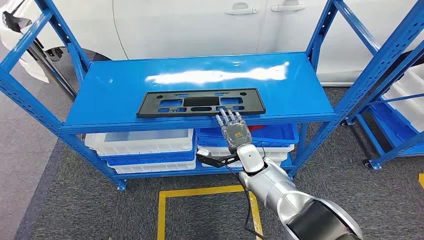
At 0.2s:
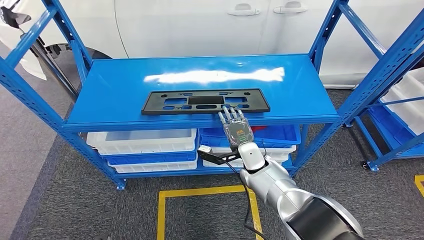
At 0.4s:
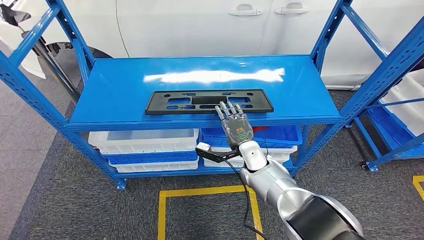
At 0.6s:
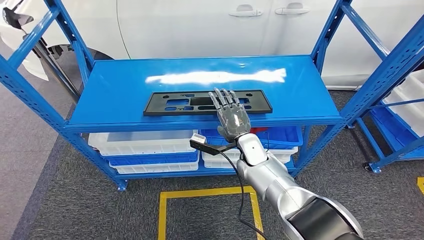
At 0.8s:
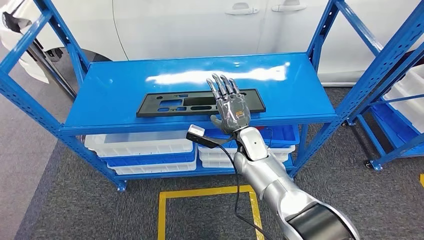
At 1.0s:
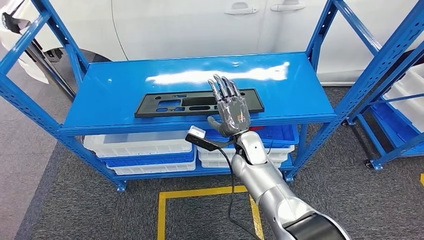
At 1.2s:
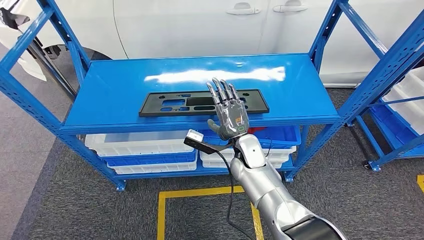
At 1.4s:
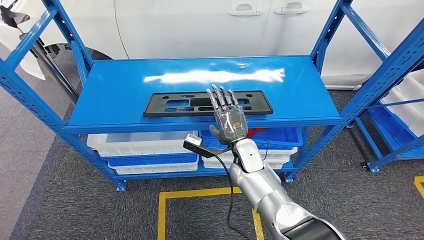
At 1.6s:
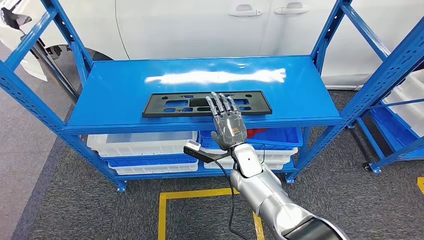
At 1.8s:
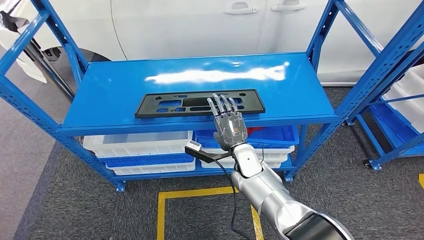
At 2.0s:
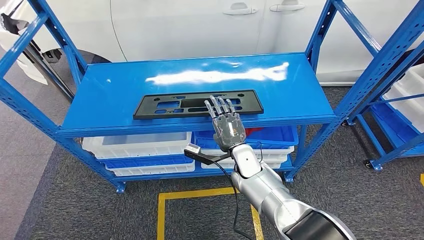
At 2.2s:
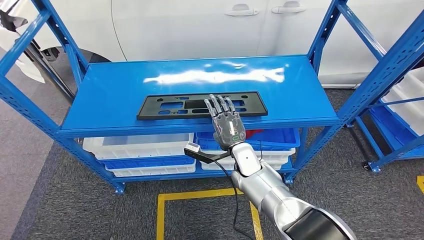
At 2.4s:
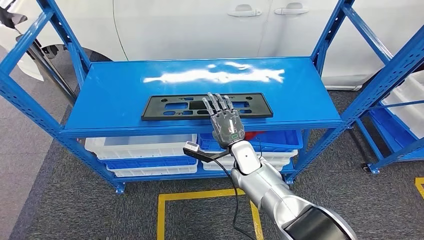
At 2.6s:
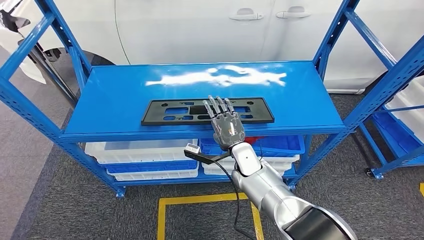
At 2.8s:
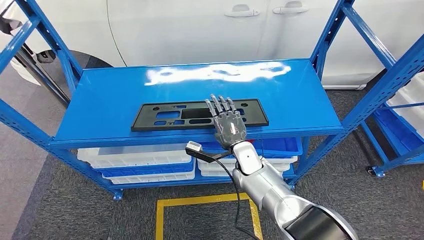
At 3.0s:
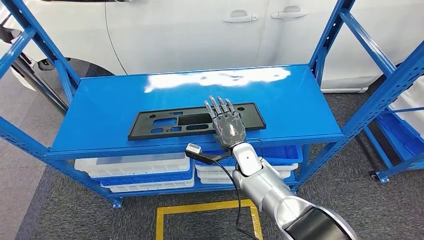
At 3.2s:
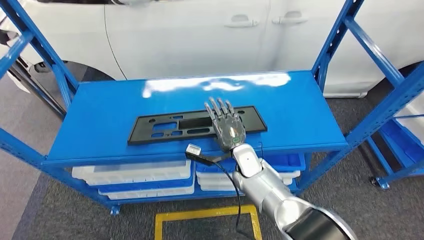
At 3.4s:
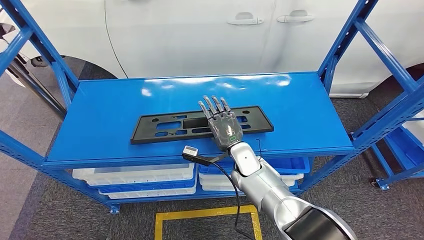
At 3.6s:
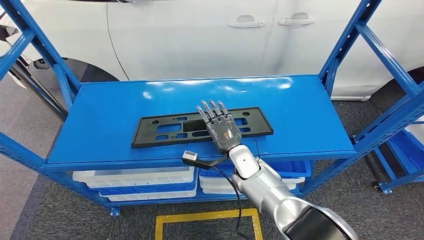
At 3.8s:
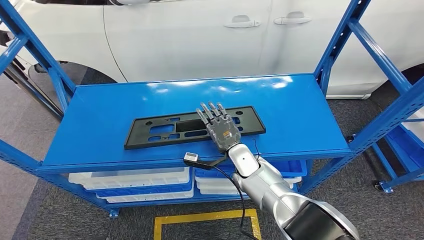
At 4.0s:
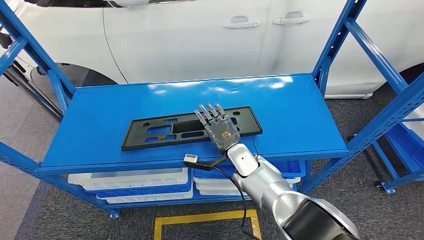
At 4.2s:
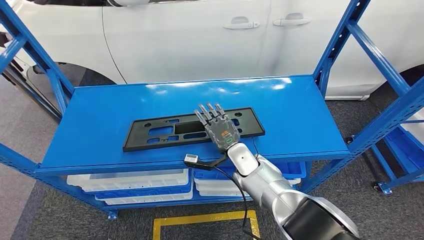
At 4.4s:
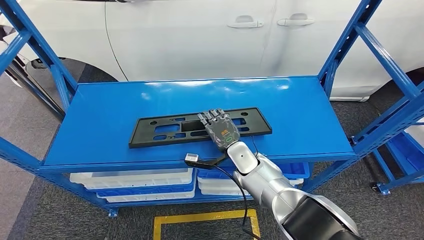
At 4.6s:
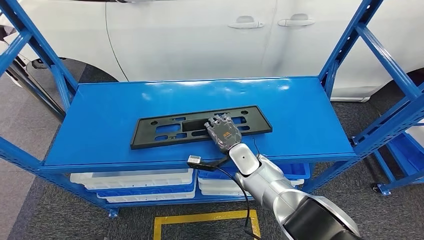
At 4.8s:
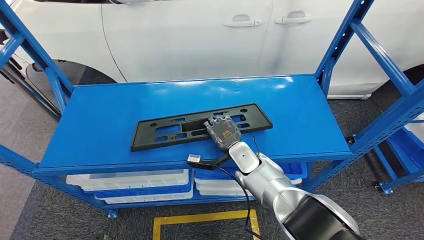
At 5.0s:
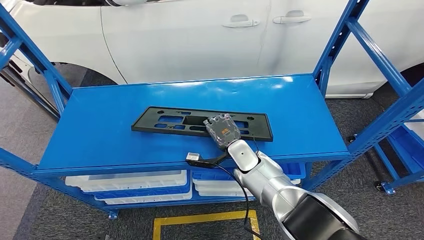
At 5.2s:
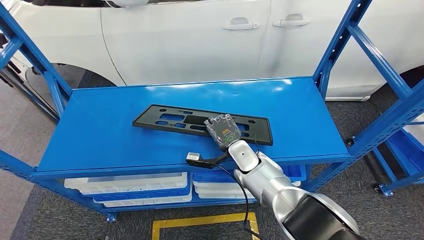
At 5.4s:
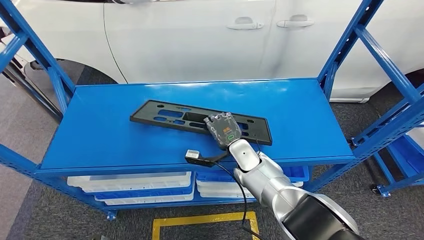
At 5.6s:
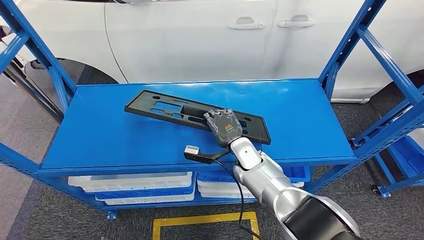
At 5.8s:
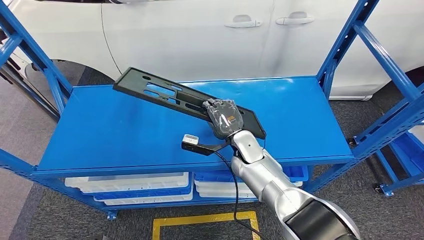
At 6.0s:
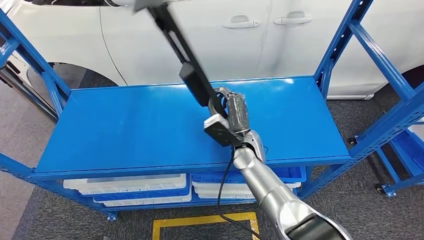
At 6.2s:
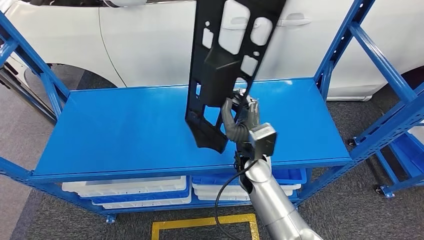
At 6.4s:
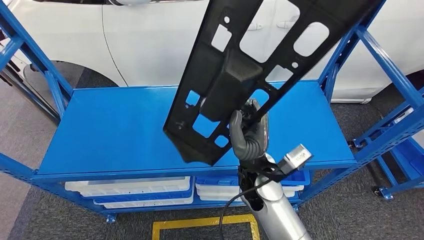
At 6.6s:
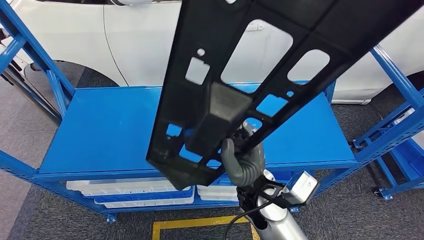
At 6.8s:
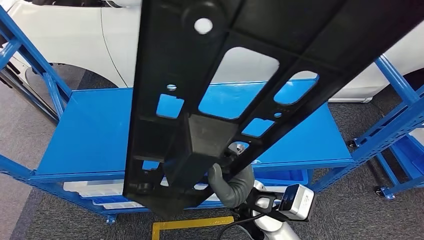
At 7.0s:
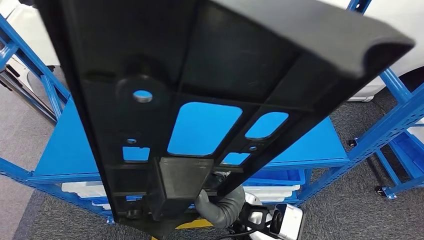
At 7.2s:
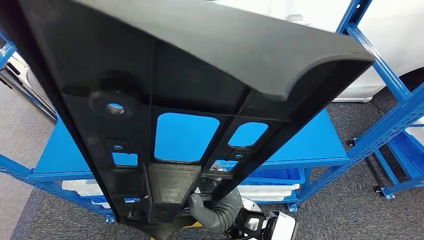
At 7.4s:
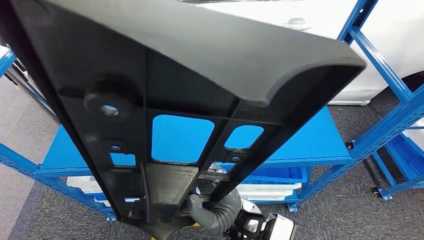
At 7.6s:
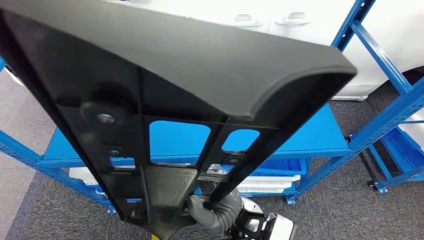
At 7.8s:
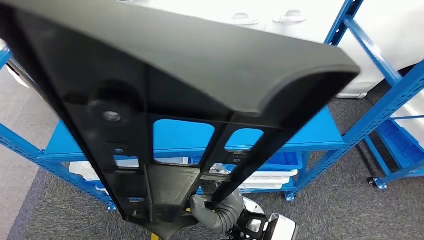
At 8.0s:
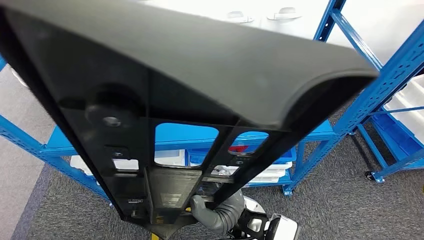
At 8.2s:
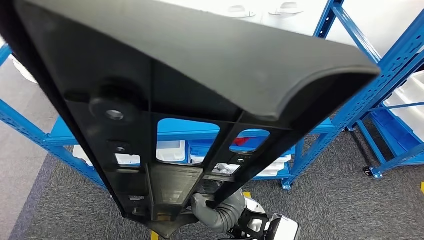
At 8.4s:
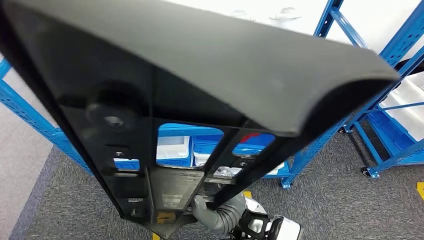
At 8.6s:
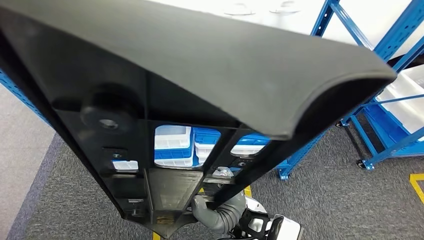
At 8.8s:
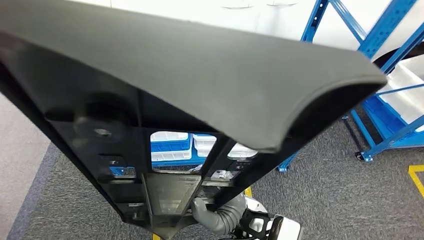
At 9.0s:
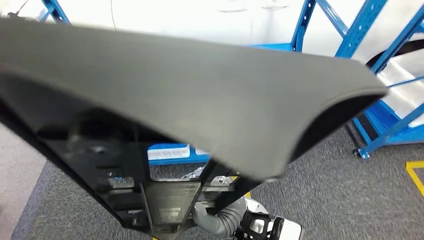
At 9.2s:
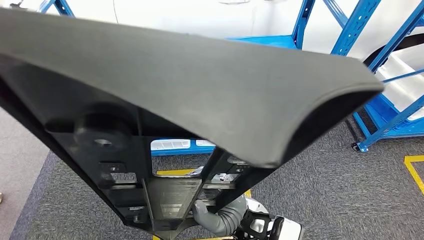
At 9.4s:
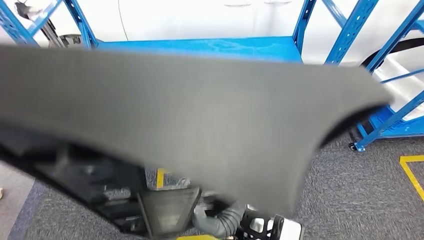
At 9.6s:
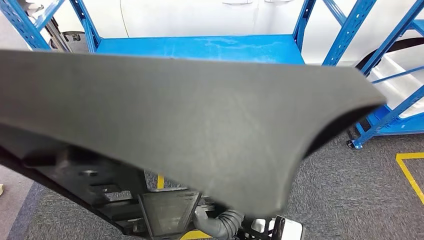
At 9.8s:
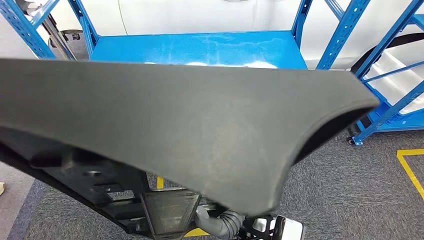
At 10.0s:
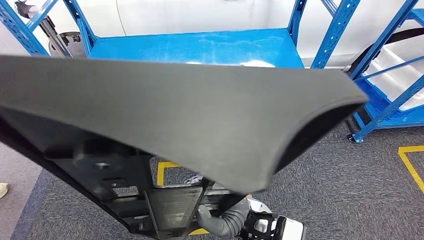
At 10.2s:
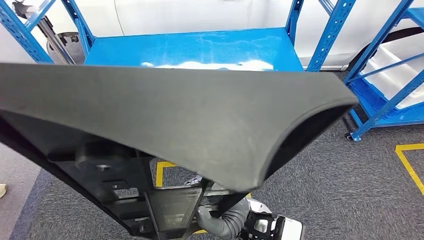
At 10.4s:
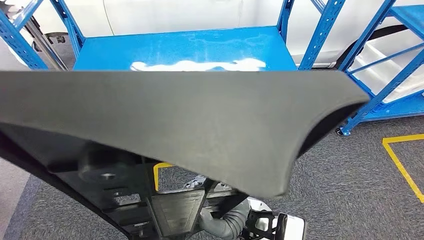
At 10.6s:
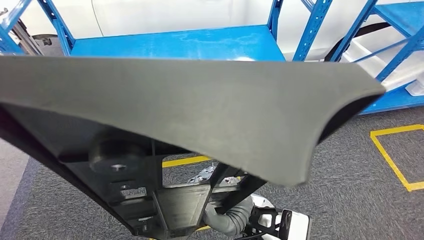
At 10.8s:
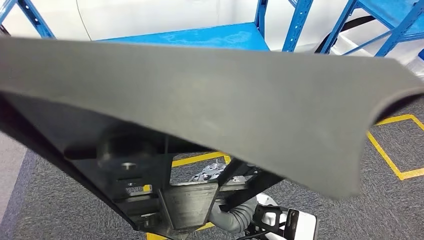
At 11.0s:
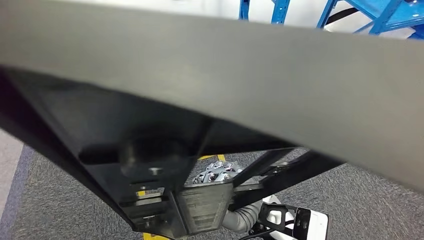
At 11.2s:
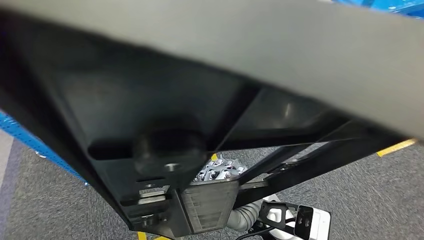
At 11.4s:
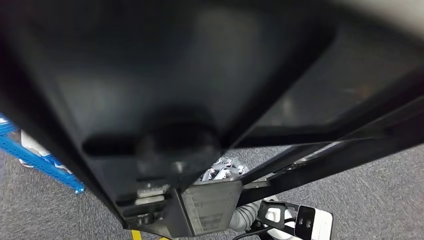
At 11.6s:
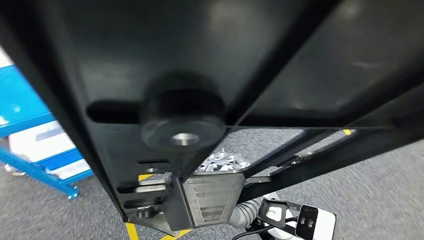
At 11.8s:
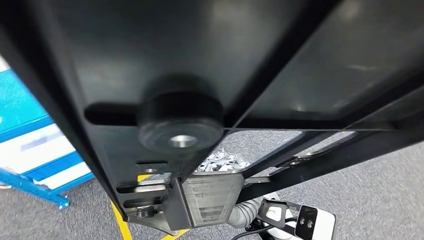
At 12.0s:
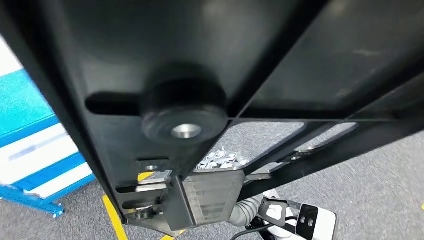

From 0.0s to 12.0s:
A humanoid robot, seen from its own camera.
Step, from 0.0s to 6.4s: Pick up the large material from the shelf.

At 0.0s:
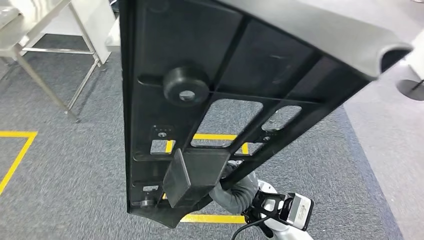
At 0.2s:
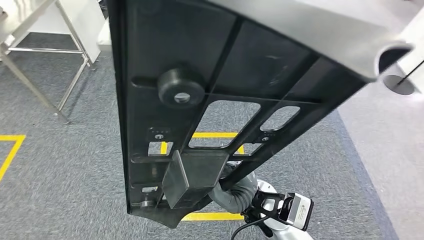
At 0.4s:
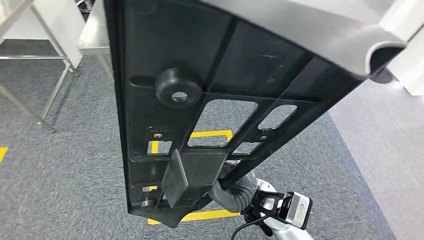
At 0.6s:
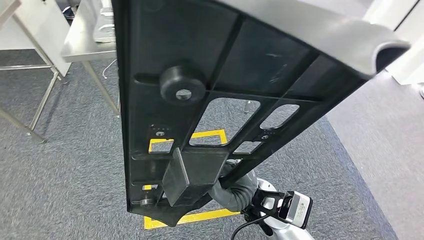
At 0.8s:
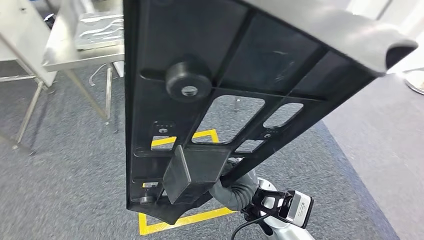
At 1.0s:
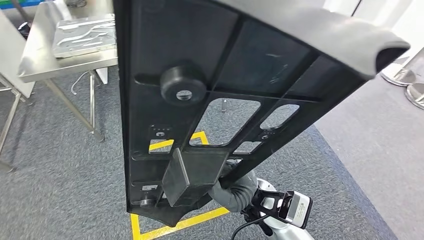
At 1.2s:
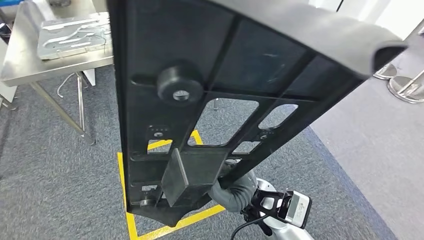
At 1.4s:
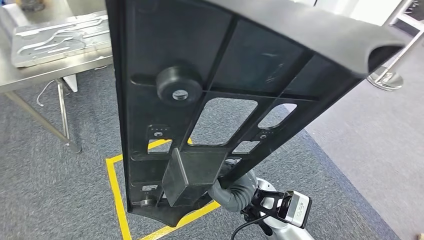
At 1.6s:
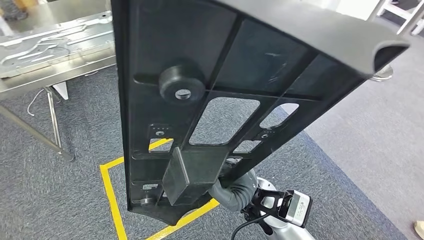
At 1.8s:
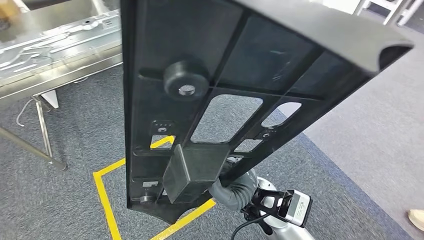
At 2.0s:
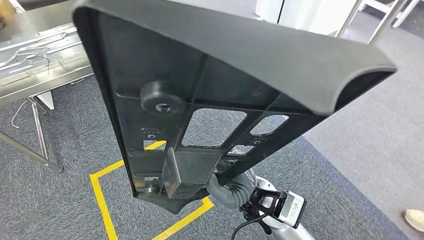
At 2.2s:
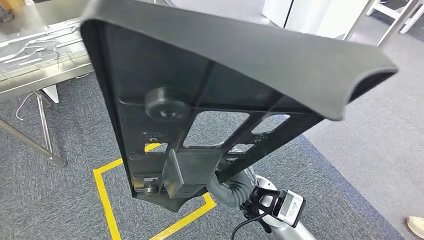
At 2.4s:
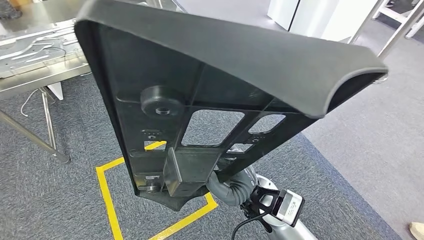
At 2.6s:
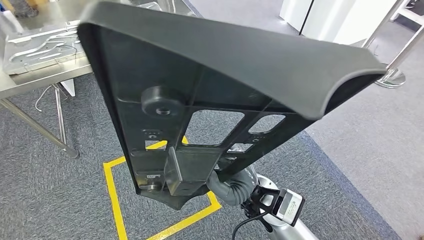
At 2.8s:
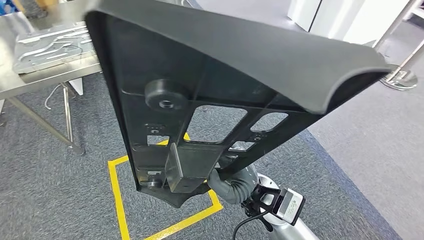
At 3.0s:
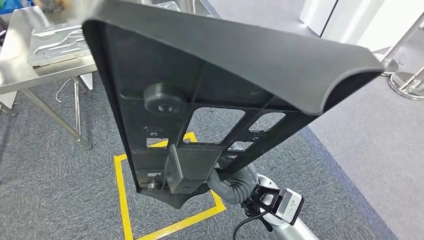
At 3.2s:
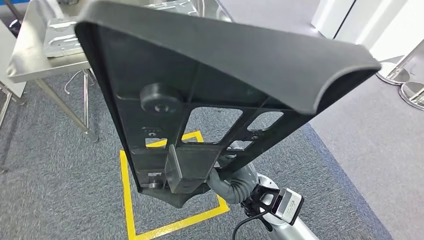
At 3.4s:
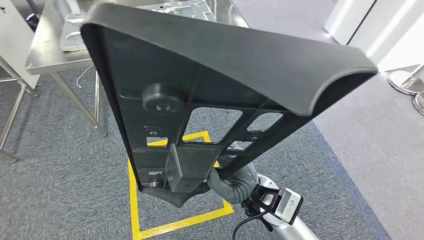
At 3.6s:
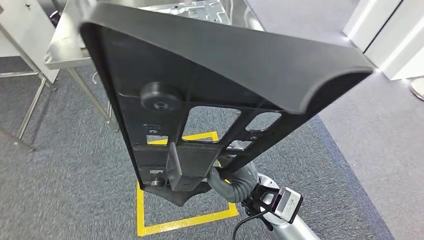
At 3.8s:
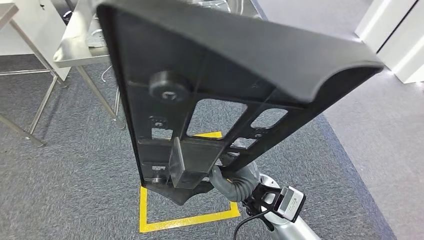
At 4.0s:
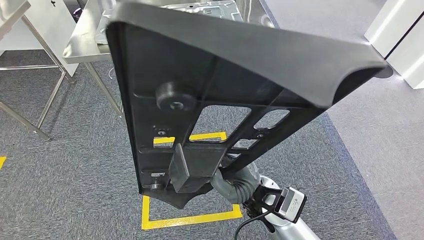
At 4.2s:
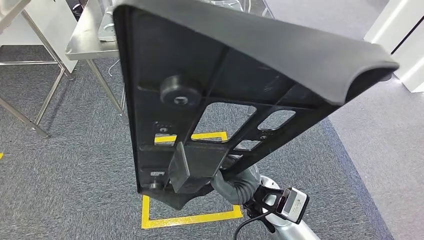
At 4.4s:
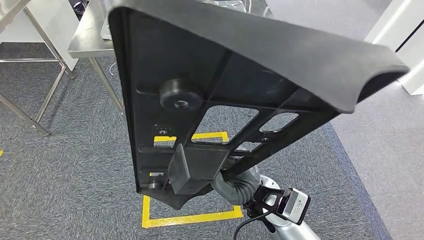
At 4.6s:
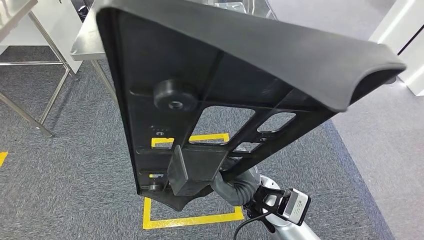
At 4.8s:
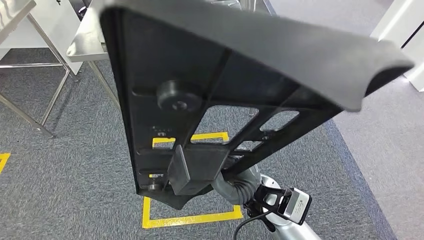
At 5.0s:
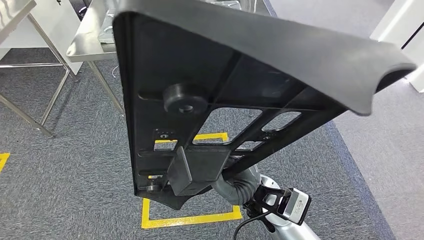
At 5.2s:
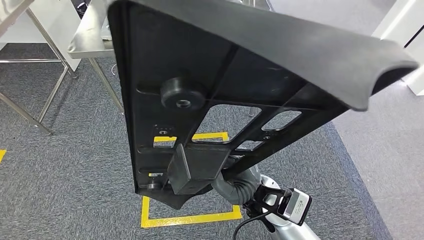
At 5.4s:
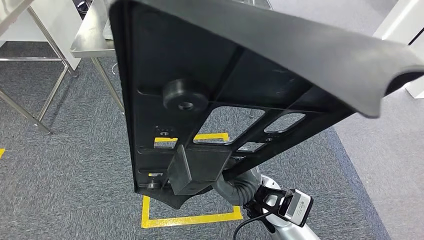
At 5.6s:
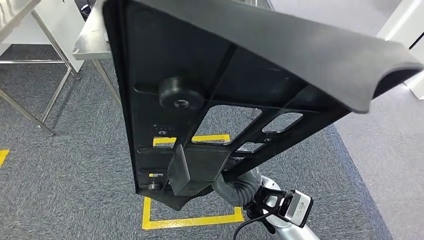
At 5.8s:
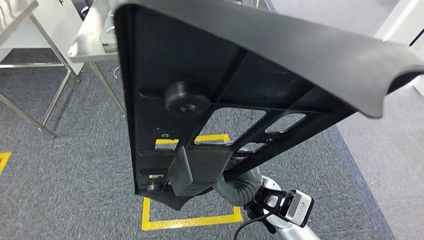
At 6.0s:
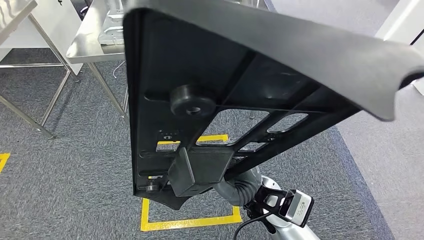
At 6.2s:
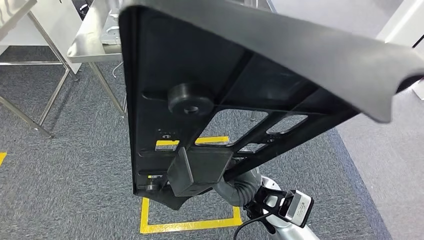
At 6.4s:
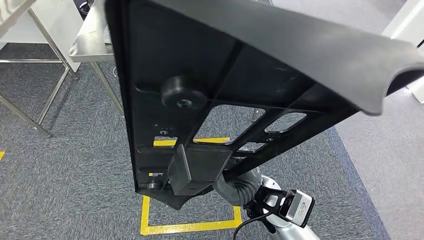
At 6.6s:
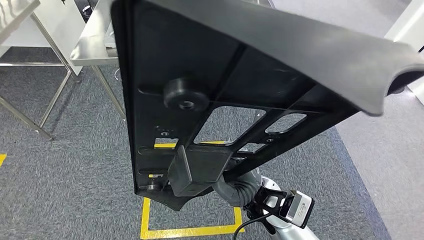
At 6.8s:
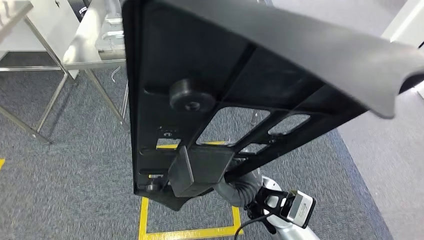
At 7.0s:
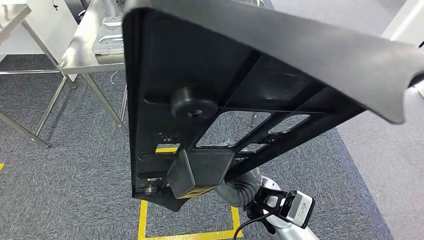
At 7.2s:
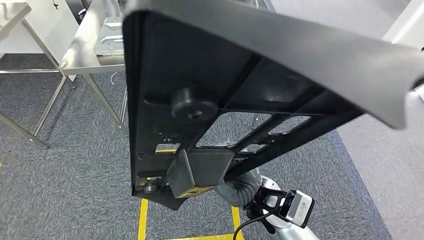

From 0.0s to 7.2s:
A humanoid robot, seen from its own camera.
From 5.8s to 7.2s: Both hands stay put.
